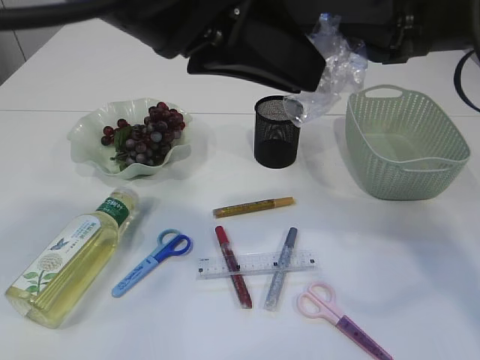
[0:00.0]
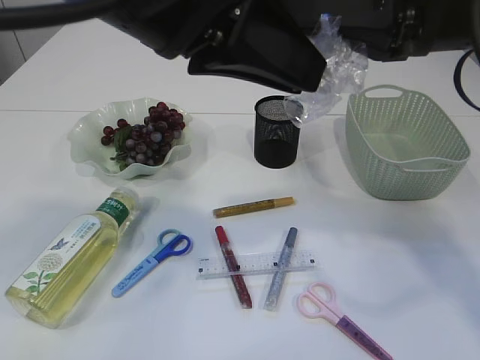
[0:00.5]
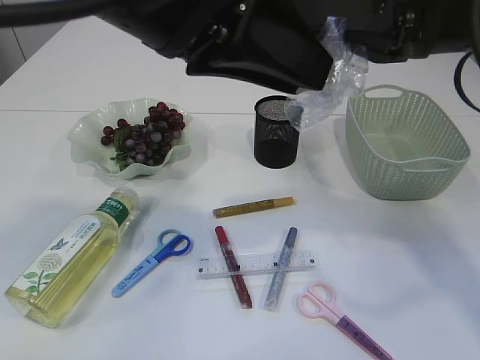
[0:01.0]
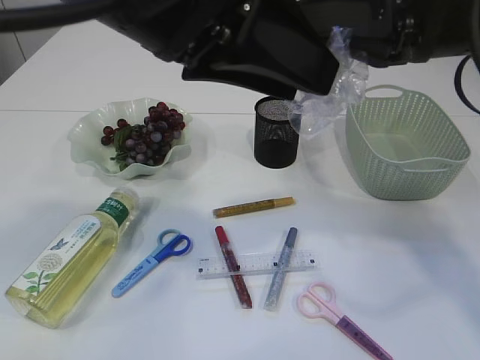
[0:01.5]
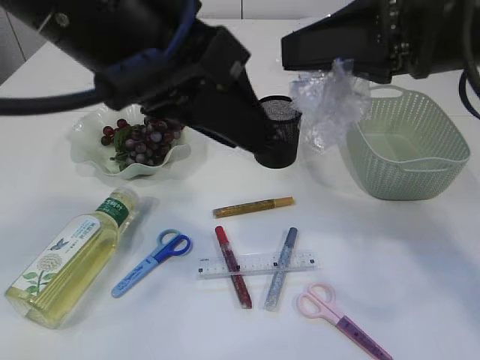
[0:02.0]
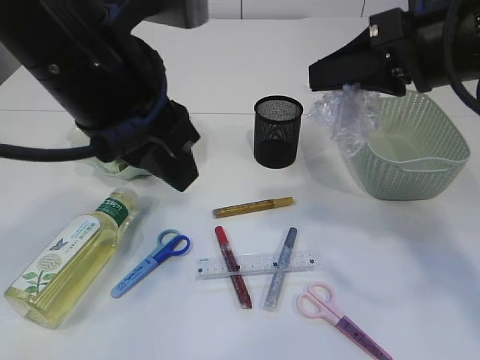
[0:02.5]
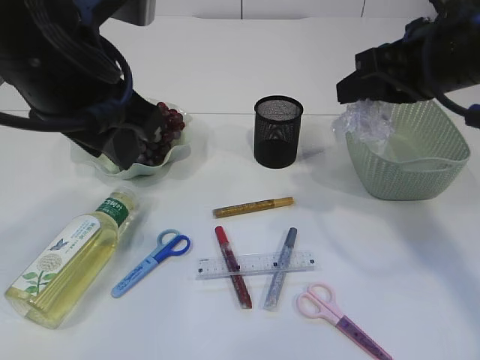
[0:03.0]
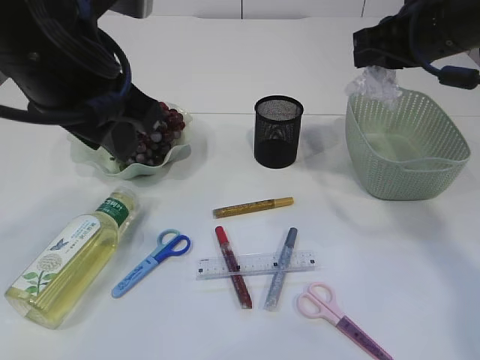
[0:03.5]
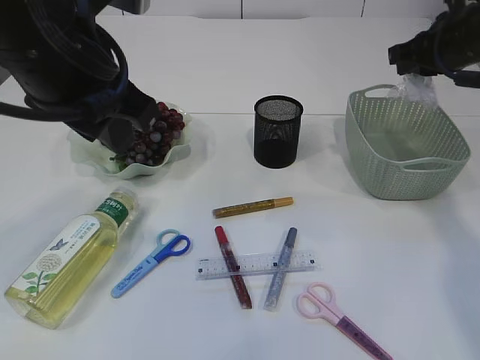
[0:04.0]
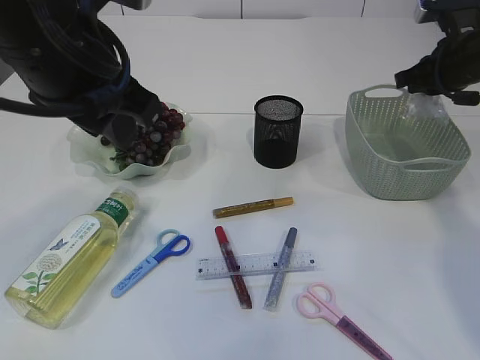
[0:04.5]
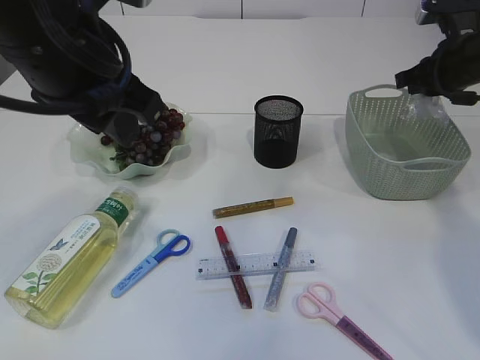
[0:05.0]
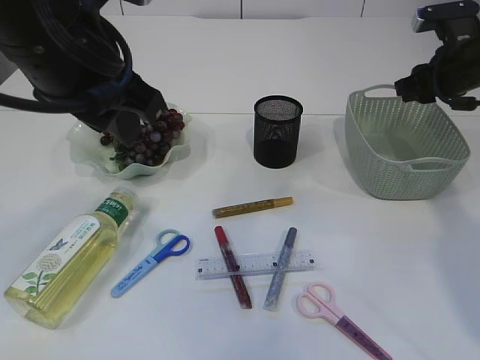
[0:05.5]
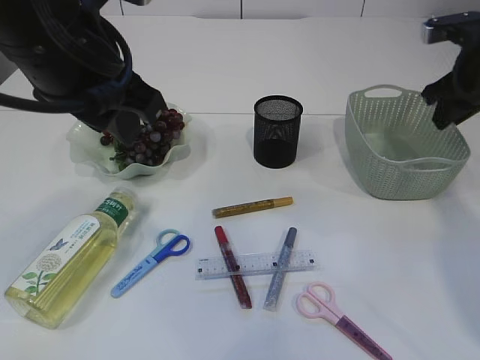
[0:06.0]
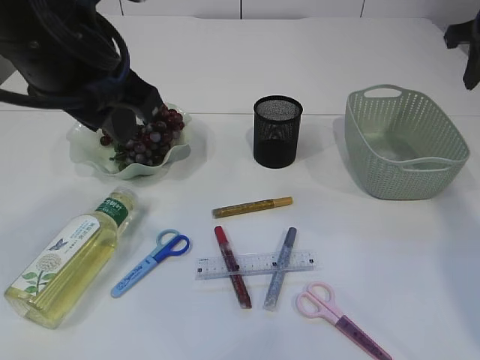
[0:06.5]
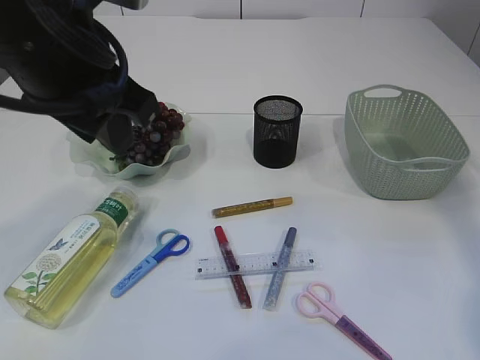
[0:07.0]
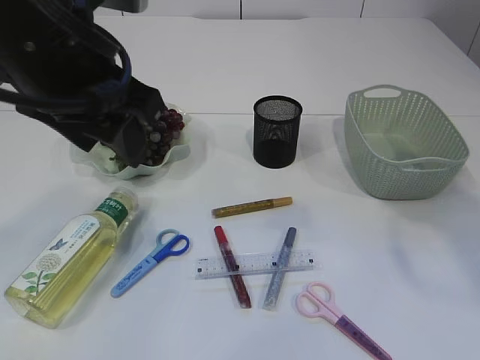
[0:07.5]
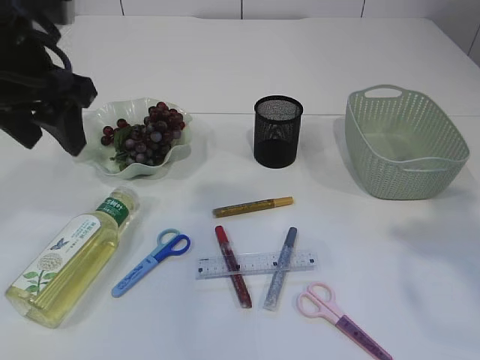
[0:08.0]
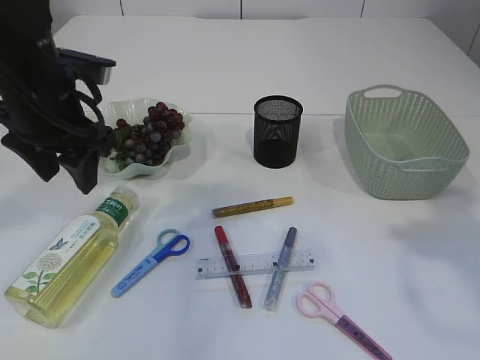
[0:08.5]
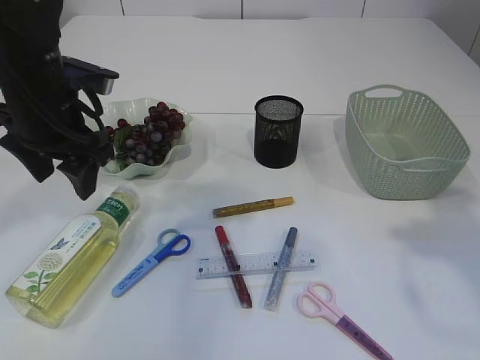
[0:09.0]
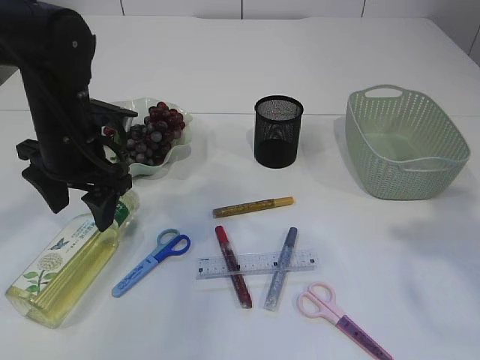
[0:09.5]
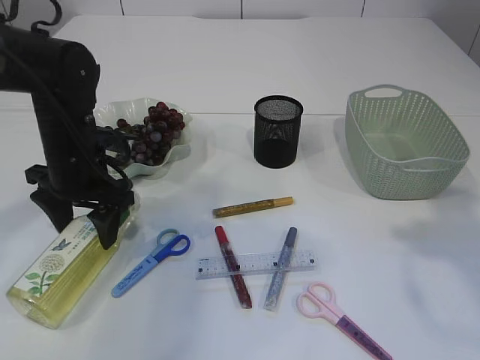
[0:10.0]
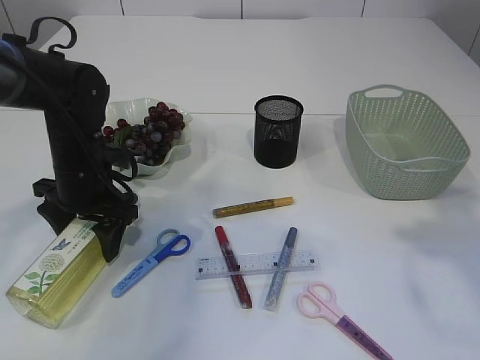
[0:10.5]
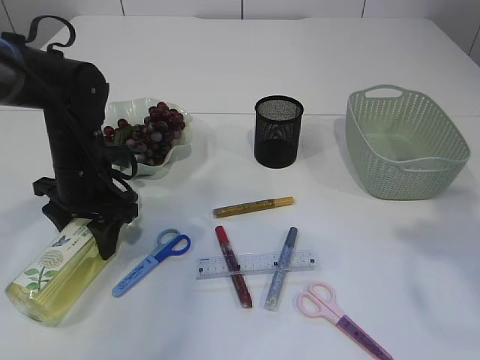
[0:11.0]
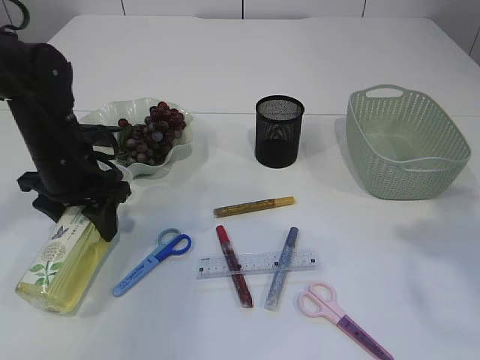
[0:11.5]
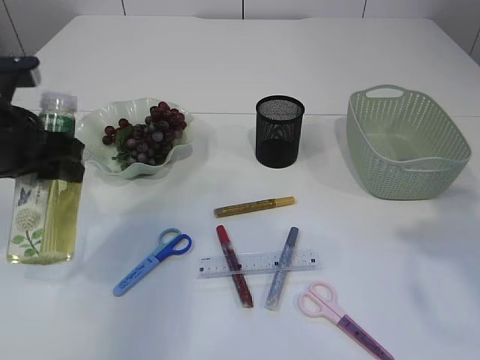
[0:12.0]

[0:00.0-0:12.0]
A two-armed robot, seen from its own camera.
Step, 0:00.0 to 0:03.0: Hand over the plastic.
Step, 0:03.5 to 0:06.0: Place the plastic in the basket.
0:00.0 to 0:02.0: The left gripper opens.
0:02.0 to 0:04.0: The left gripper changes place by about 5 cm, while the right gripper moves forward, to the right and downward, about 20 cm.
0:04.0 to 0:06.0: The right gripper opens up.
0:06.0 to 0:08.0: The right gripper shifts about 25 cm backward and upward, and opens up. Meanwhile the left gripper moves to the left and forward, about 10 cm.
0:08.0 to 0:10.0: The left gripper heads downward, covering roughly 15 cm.
0:10.0 to 0:12.0: The left gripper goes some 10 cm upward and backward.

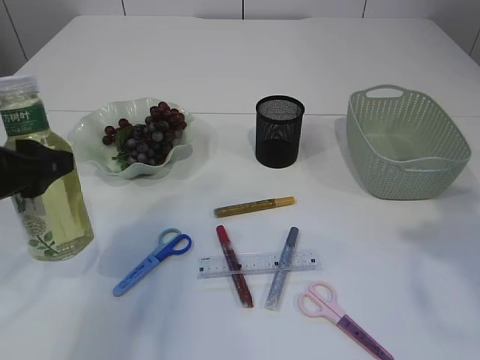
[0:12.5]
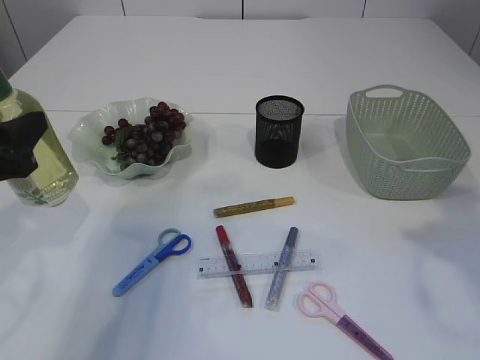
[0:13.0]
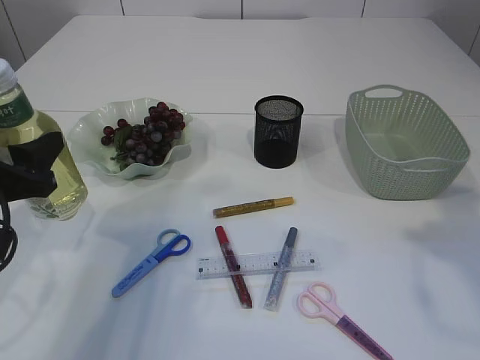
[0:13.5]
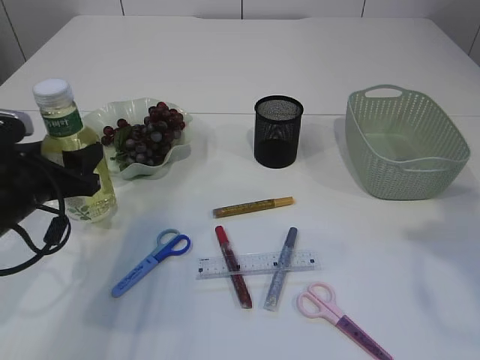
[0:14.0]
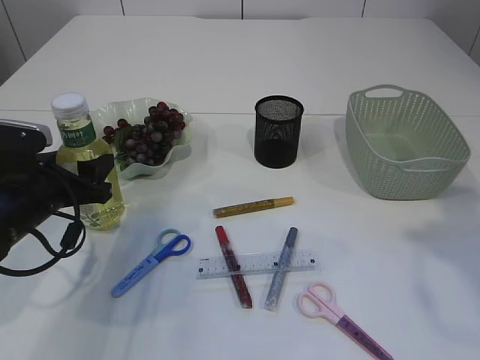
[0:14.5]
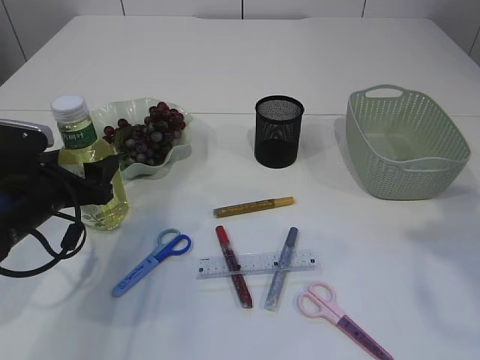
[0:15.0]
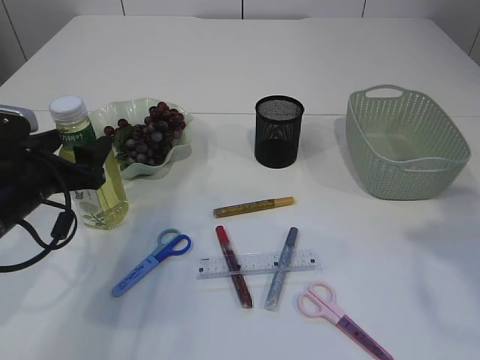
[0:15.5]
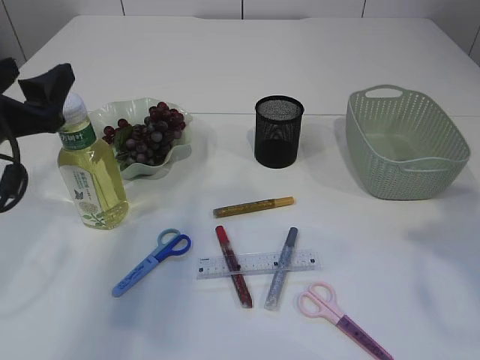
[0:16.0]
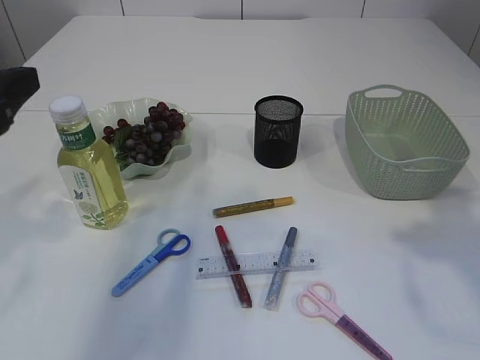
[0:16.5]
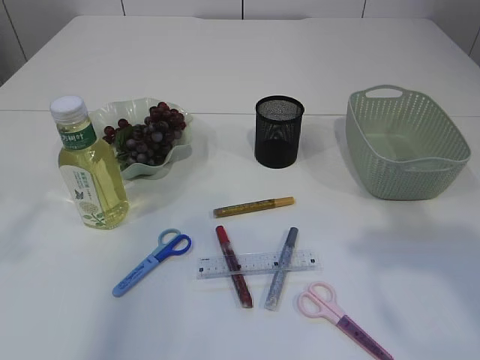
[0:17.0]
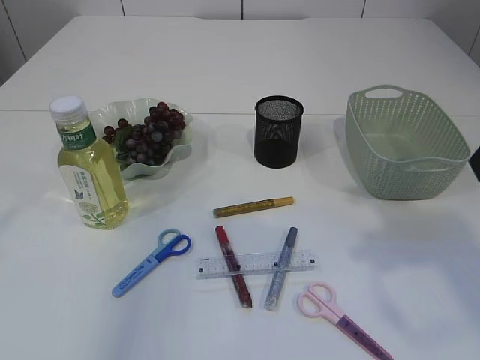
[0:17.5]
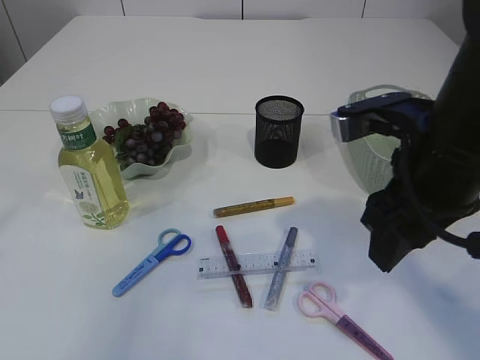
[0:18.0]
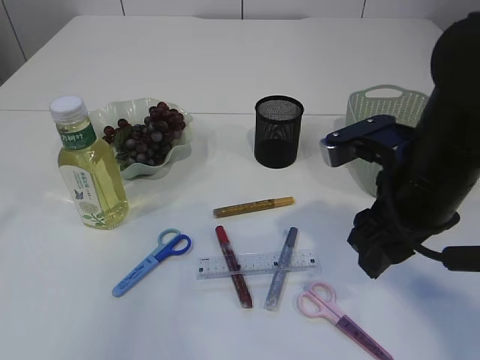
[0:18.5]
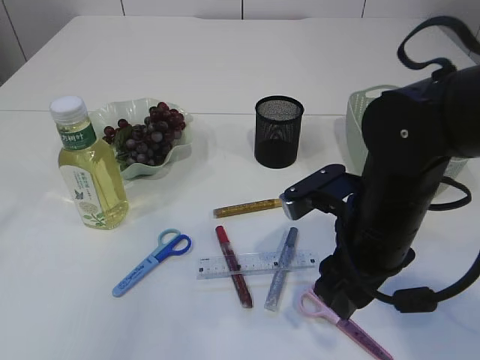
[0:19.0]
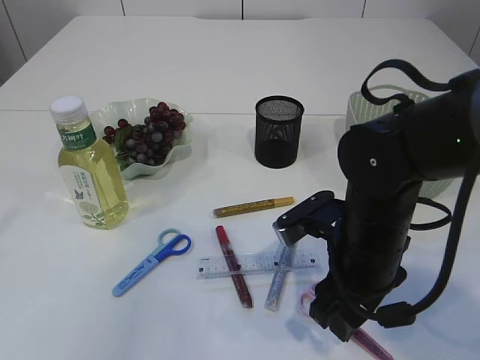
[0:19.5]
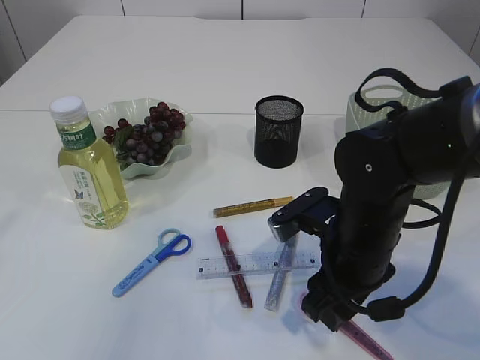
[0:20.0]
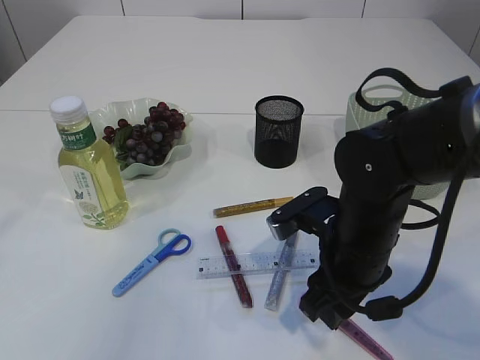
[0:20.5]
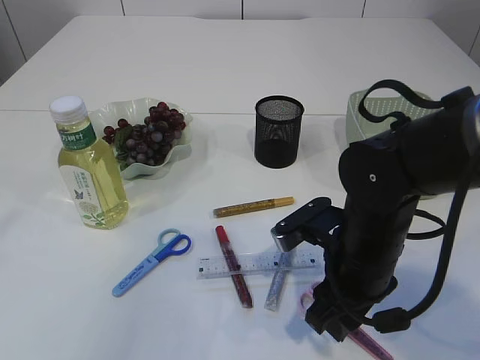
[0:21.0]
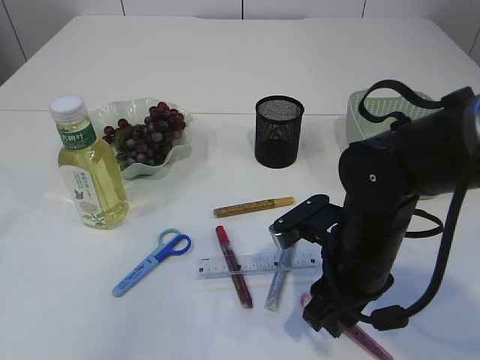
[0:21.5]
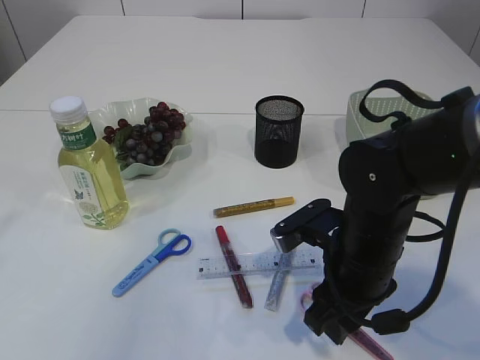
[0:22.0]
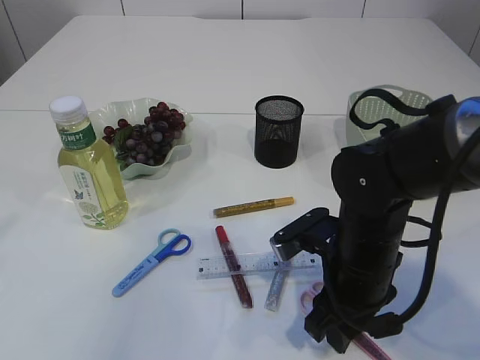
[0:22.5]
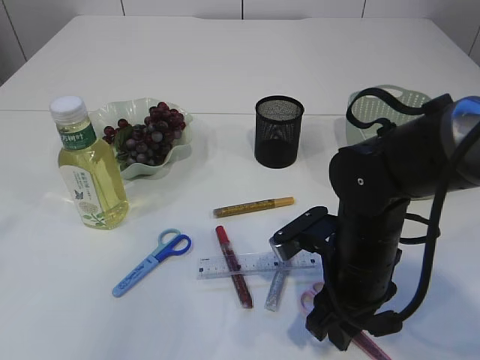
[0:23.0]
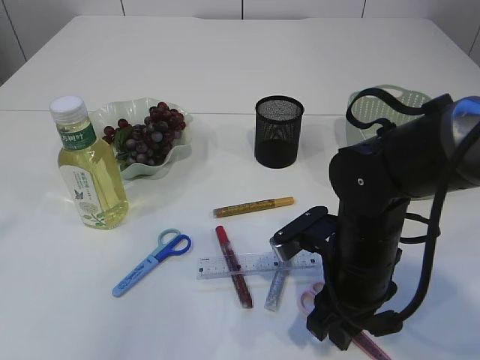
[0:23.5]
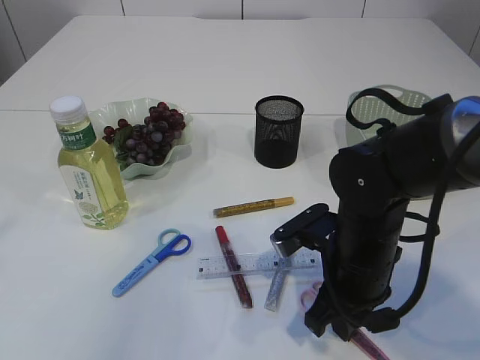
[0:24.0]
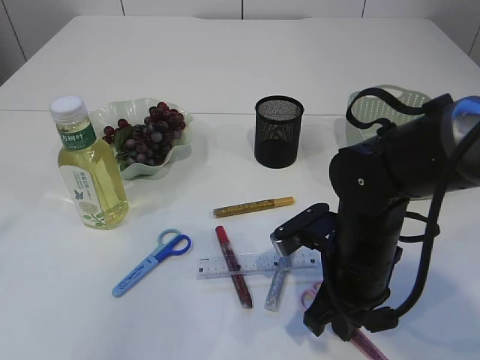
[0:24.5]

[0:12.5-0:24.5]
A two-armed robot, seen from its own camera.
Step, 0:12.5 to 0:16.0: Place the bottle.
0:12.5 to 0:14.5: The left gripper goes about 10 cm downward and forward.
0:14.5 to 0:16.5: The left gripper travels upward and backward by about 15 cm.
0:16.5 to 0:18.5: The right gripper is displaced to the left, downward and forward by about 20 cm; the left gripper shifts approximately 15 cm upward and backward.
0:18.5 to 0:20.5: The right gripper shifts approximately 10 cm downward.
0:20.5 to 0:22.5: There are only small adjustments of the grippers.
0:22.5 to 0:24.5: The right gripper closes up.

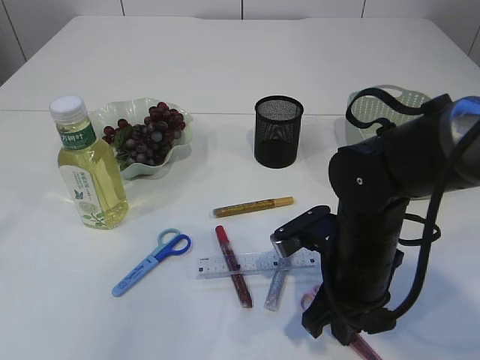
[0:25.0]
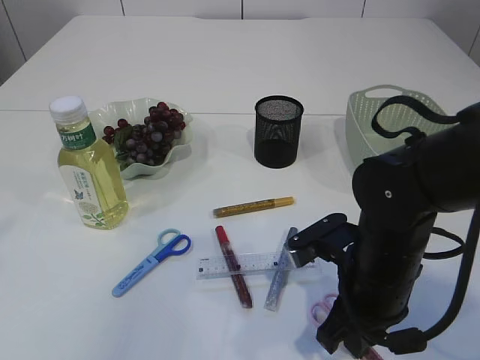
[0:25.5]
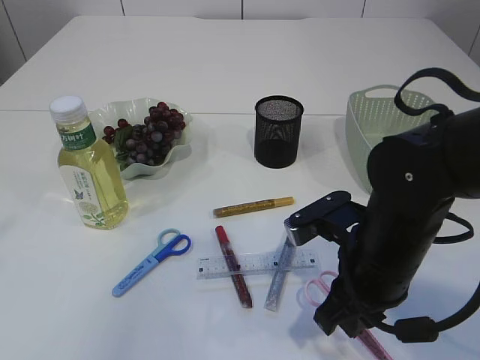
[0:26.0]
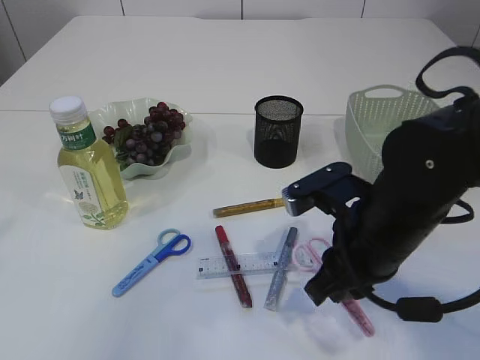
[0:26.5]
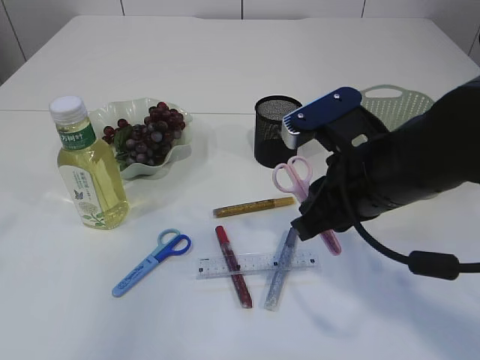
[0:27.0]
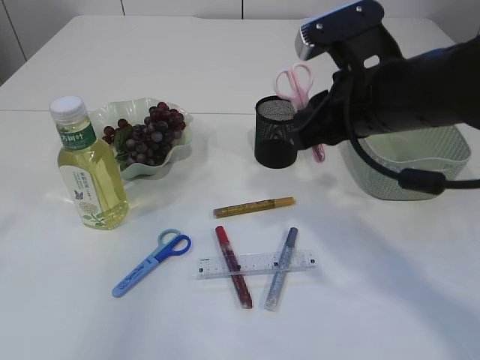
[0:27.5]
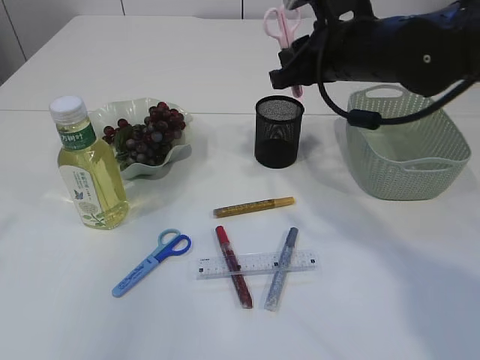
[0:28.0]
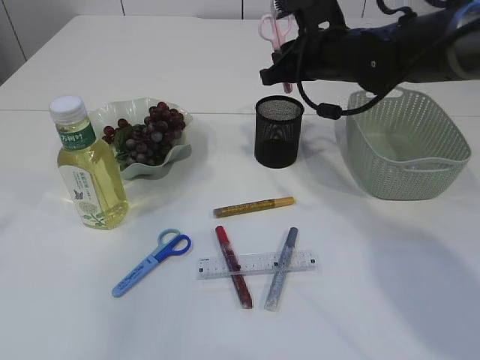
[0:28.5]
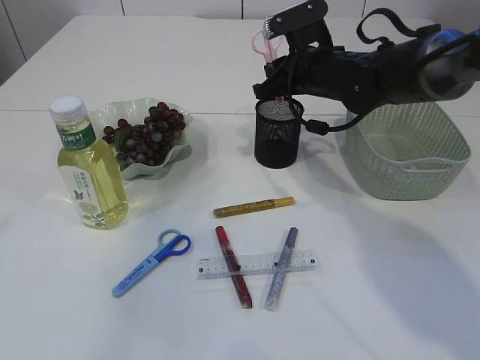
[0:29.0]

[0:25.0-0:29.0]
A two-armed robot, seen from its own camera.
0:25.0 to 0:27.0: The right gripper moves upward, some 10 cm.
0:27.0 to 0:29.0: The right gripper is displaced forward by roughly 20 cm.
